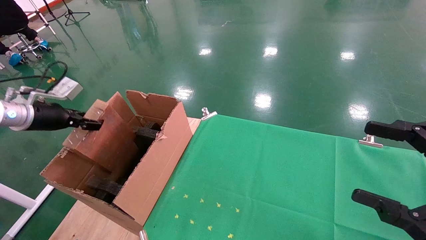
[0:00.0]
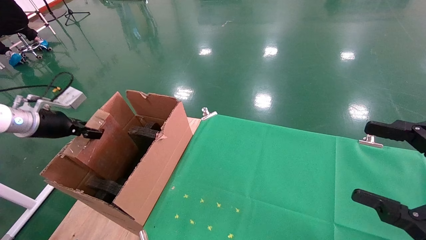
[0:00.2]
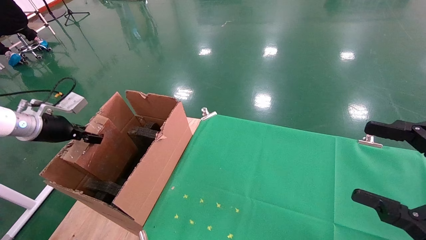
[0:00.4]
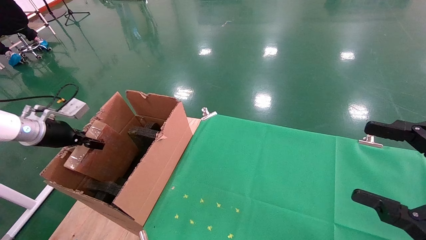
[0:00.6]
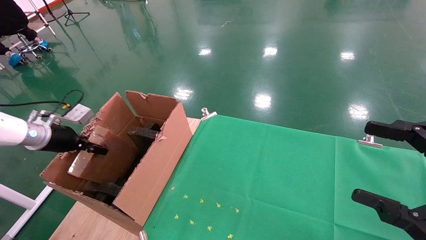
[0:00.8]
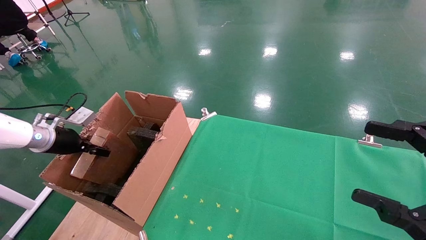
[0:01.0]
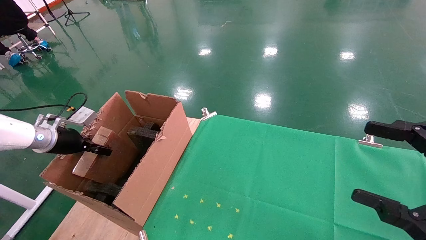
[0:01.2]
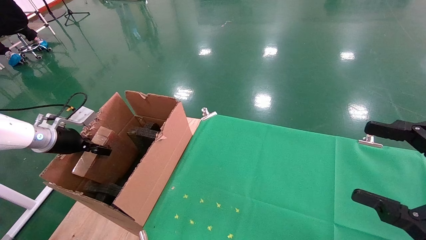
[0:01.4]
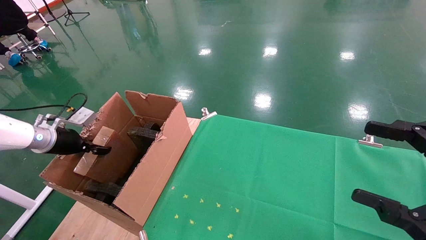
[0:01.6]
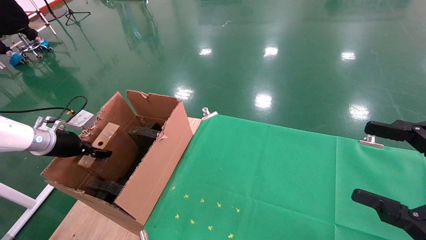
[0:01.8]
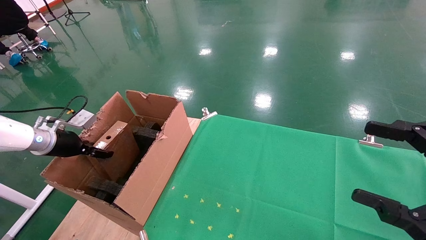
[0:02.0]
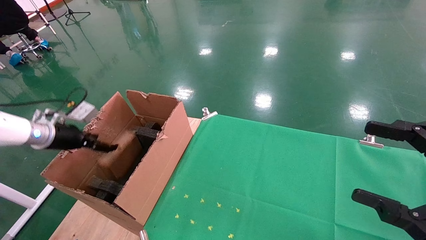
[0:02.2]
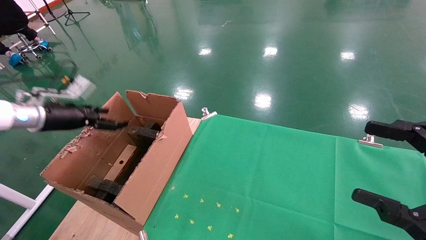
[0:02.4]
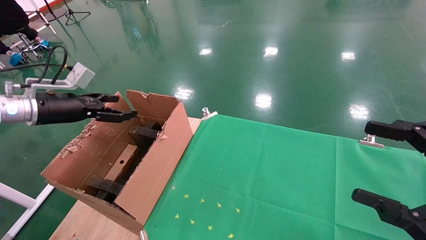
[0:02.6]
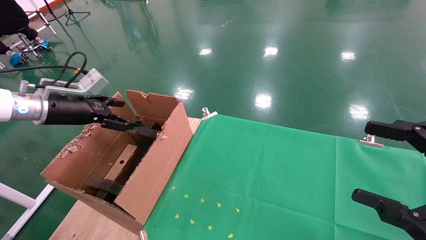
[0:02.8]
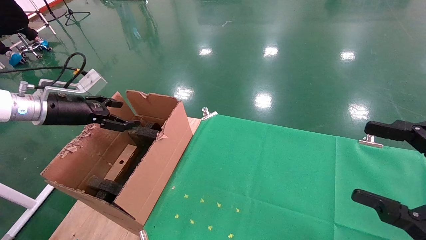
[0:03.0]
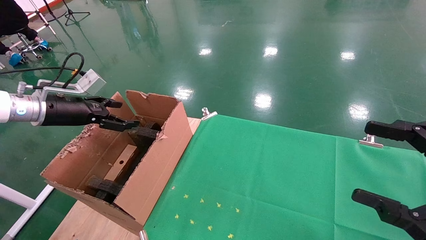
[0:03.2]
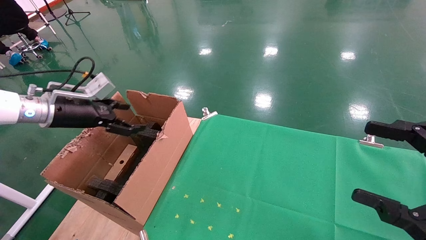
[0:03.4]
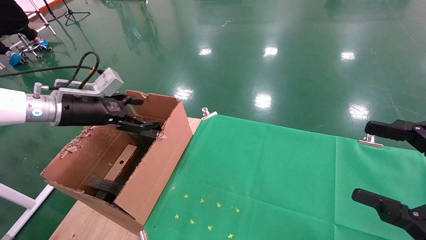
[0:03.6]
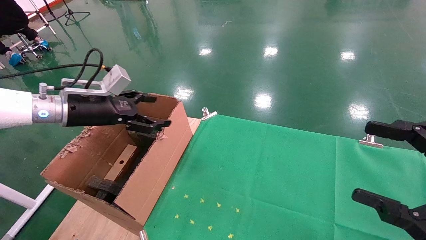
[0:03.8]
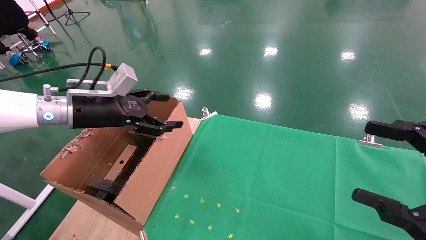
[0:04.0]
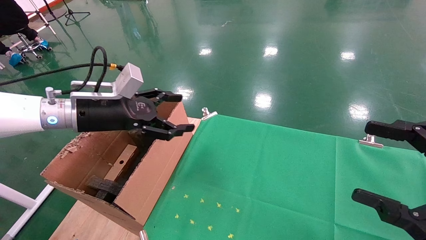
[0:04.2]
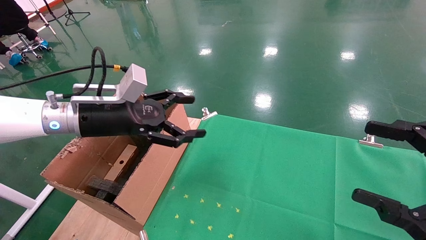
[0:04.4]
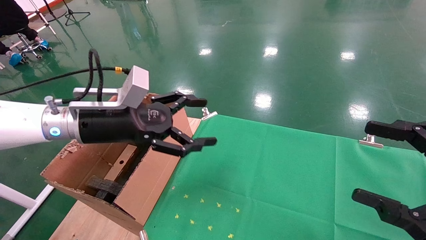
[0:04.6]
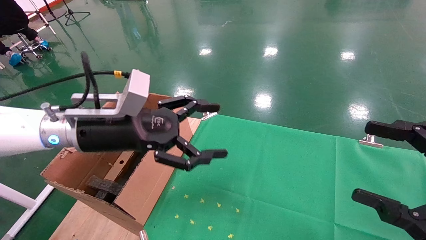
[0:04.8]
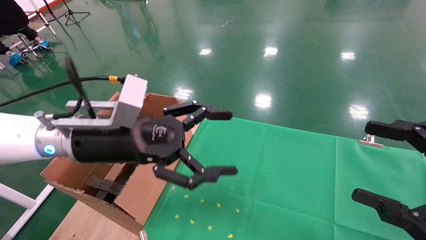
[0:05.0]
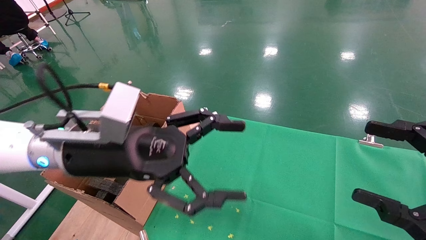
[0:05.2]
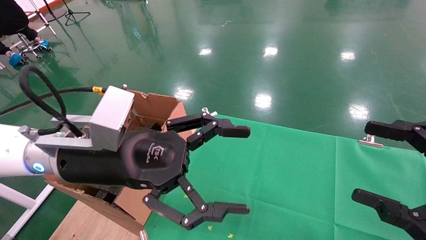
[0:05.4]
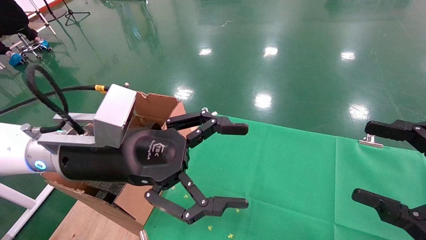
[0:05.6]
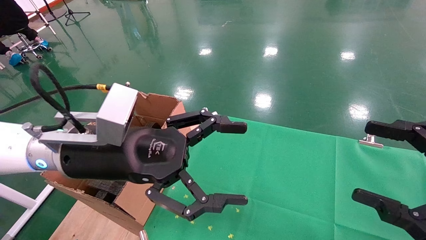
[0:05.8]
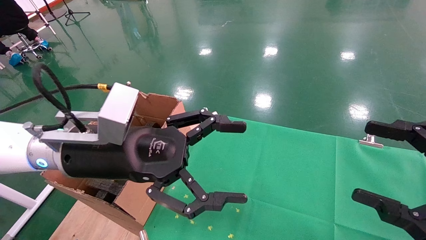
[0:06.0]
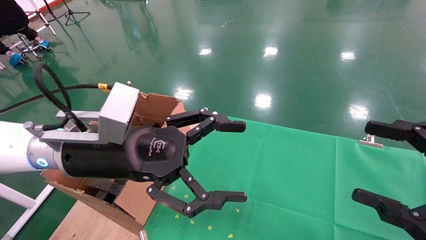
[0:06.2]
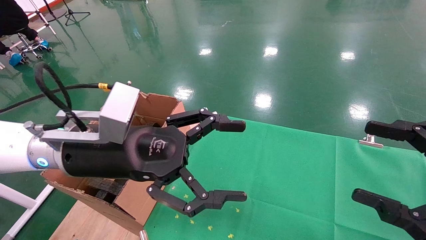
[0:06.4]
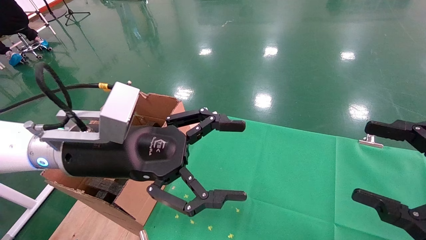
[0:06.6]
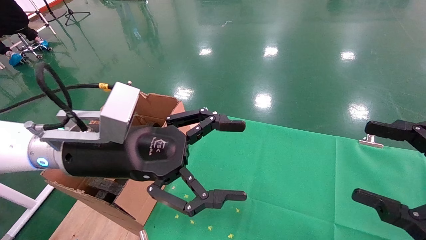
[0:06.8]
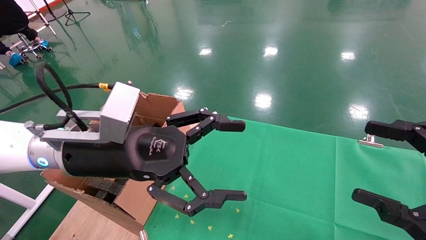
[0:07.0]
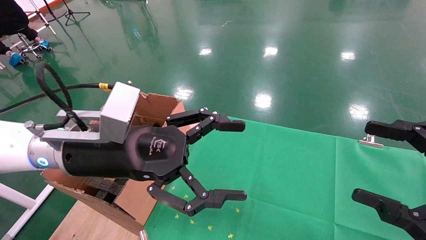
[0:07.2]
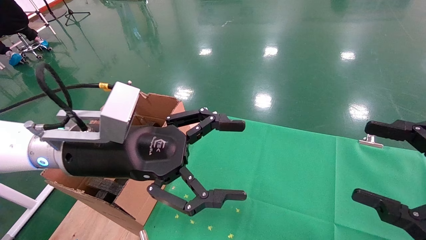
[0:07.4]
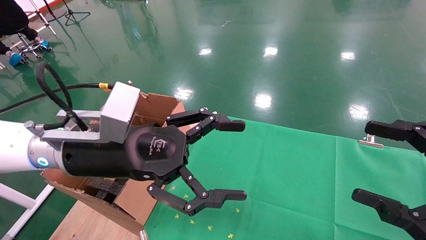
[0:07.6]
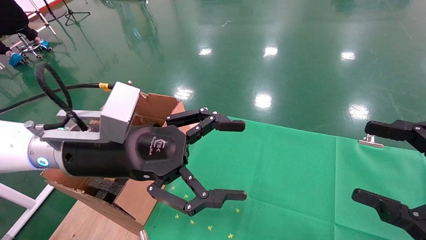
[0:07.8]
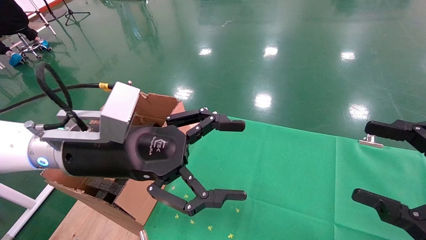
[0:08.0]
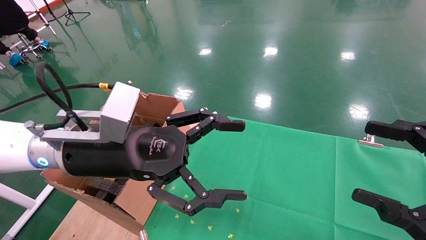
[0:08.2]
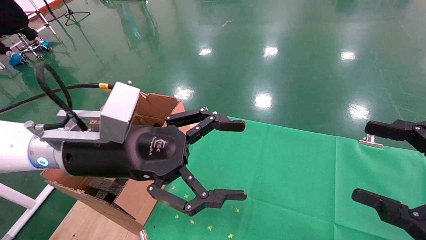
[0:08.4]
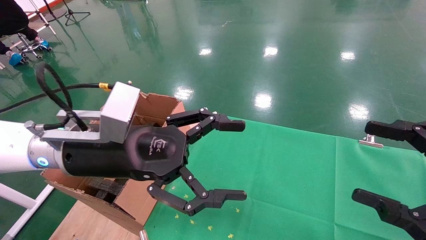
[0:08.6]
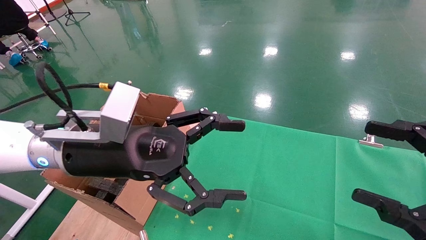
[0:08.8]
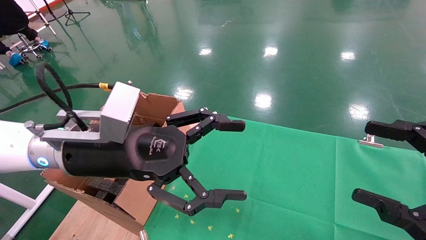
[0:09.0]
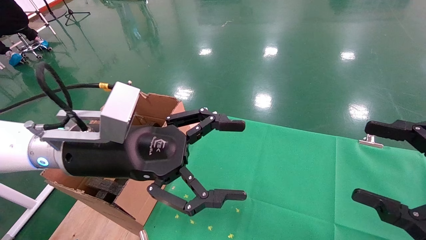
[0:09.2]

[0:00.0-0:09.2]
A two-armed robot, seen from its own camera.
Task of the whole recording: using a robotic arm to pick up a cardboard box and palace it the carton.
0:00.0 to 0:01.6: The left gripper goes roughly 10 cm downward.
0:01.6 to 0:03.0: The left gripper heads upward and to the right, covering some 10 cm, and opens its fingers.
0:03.0 to 0:04.6: The left gripper is displaced to the right by some 20 cm.
0:04.6 to 0:06.2: The left gripper heads backward and to the right, covering some 10 cm.
0:06.2 to 0:09.2: Both grippers stay about where they are.
